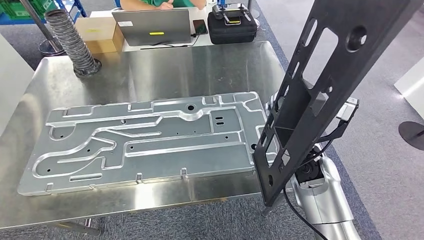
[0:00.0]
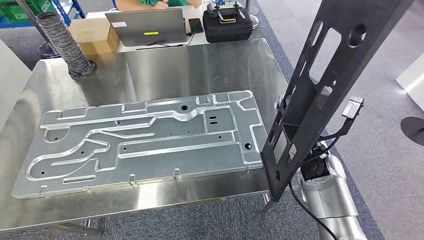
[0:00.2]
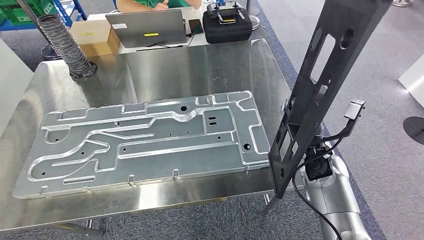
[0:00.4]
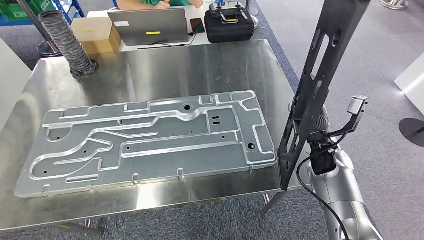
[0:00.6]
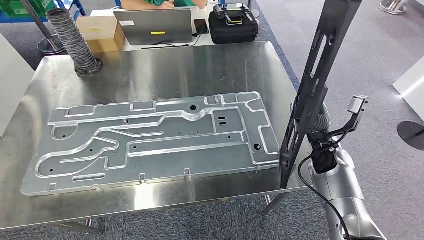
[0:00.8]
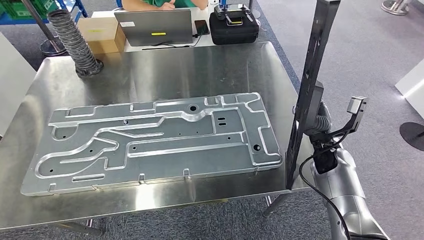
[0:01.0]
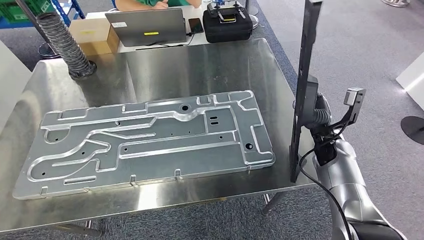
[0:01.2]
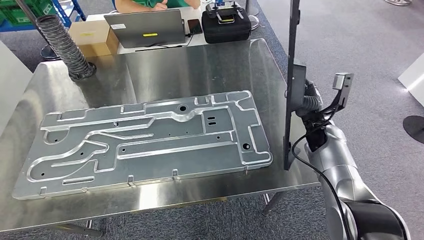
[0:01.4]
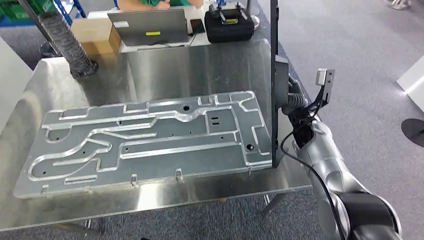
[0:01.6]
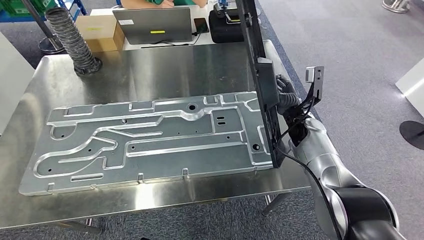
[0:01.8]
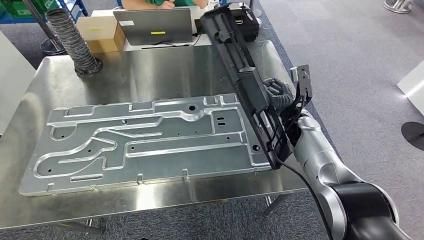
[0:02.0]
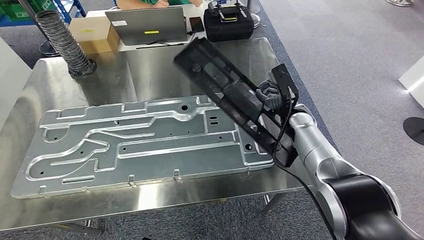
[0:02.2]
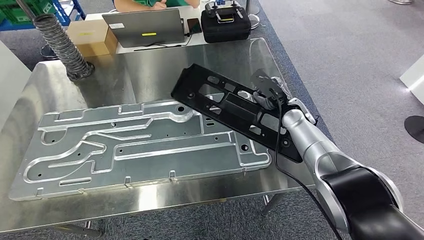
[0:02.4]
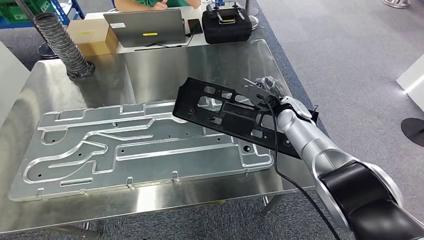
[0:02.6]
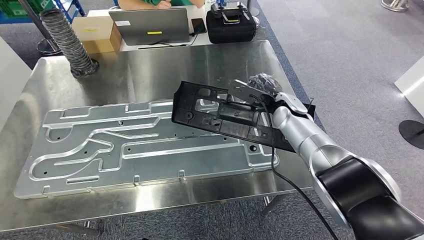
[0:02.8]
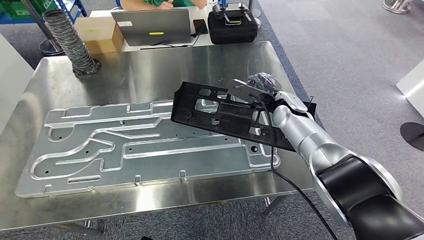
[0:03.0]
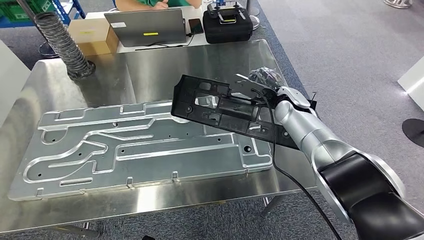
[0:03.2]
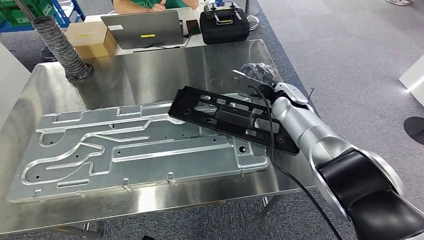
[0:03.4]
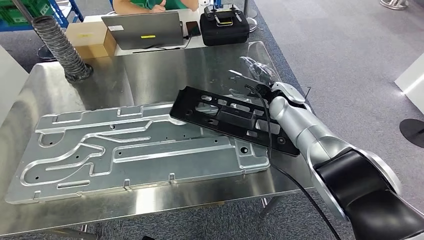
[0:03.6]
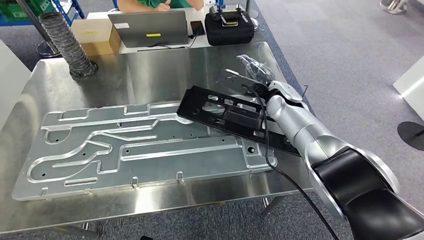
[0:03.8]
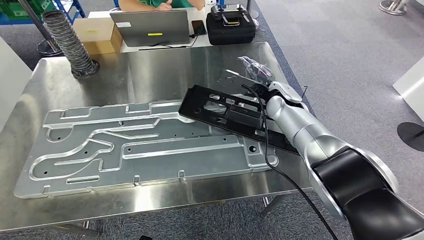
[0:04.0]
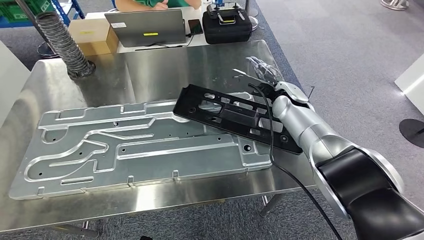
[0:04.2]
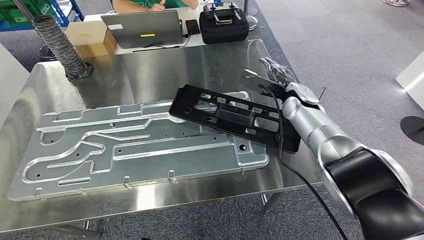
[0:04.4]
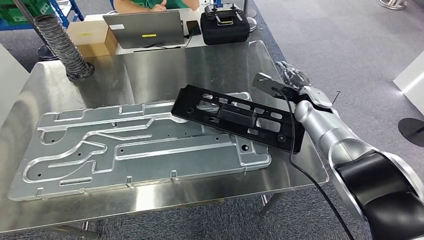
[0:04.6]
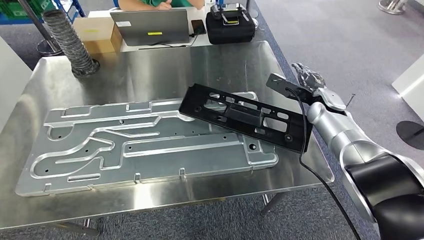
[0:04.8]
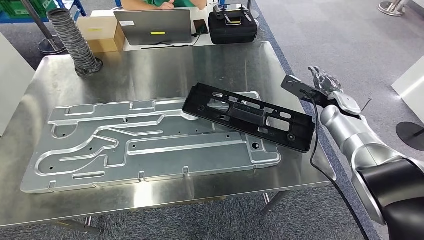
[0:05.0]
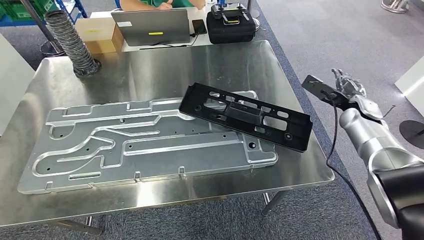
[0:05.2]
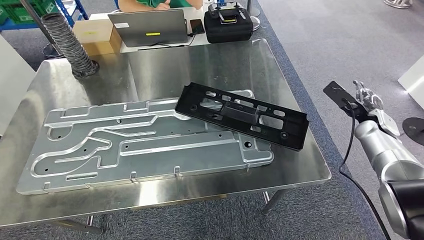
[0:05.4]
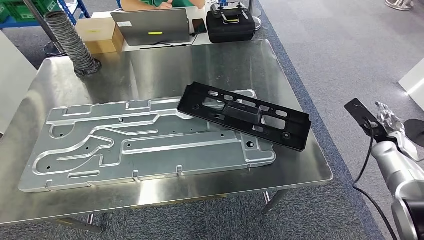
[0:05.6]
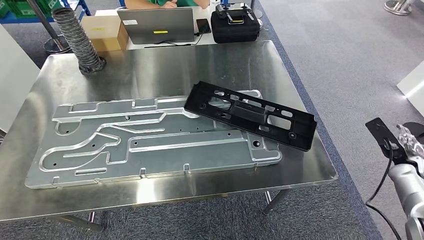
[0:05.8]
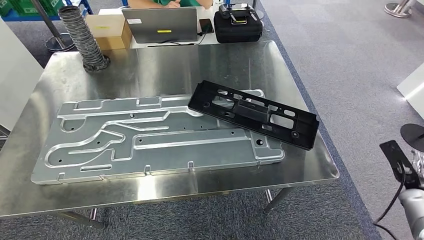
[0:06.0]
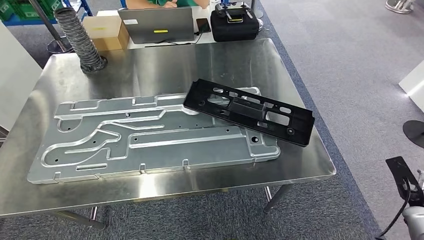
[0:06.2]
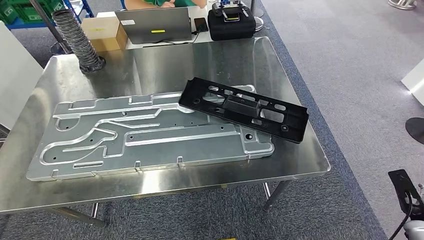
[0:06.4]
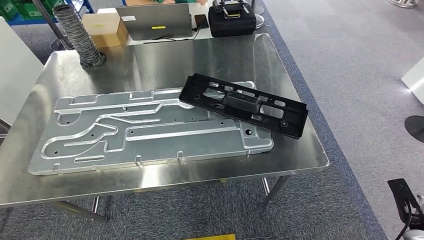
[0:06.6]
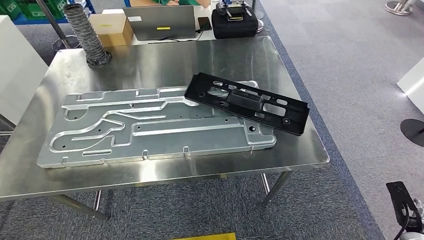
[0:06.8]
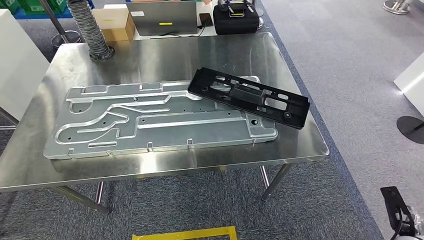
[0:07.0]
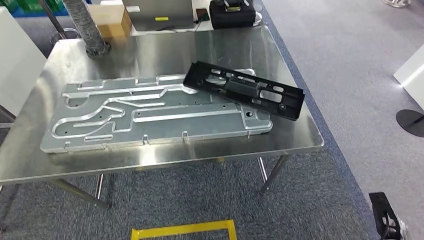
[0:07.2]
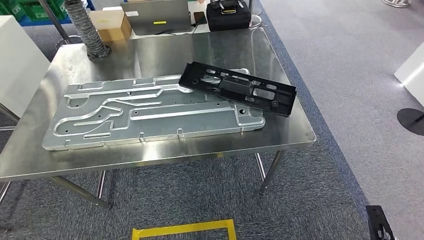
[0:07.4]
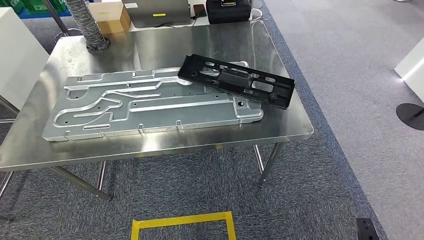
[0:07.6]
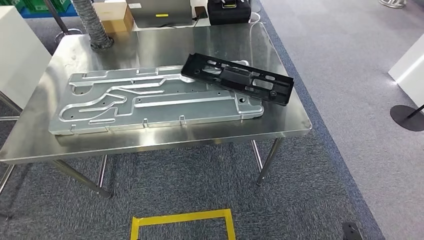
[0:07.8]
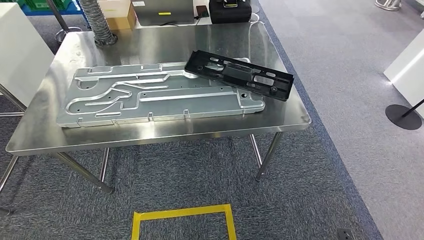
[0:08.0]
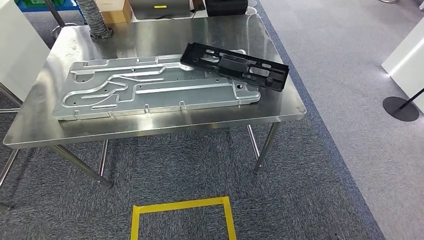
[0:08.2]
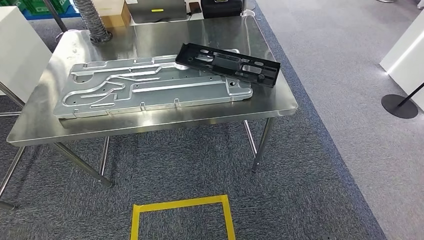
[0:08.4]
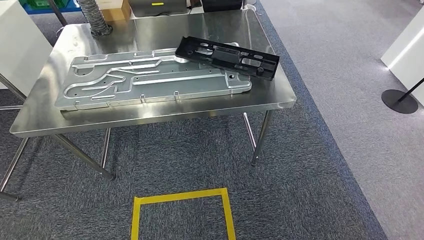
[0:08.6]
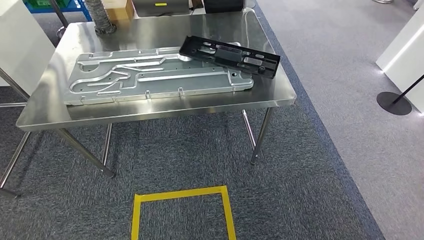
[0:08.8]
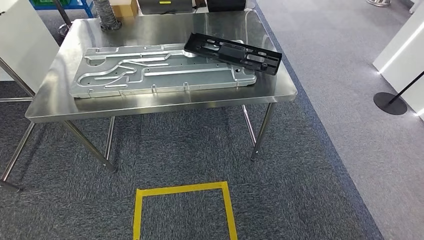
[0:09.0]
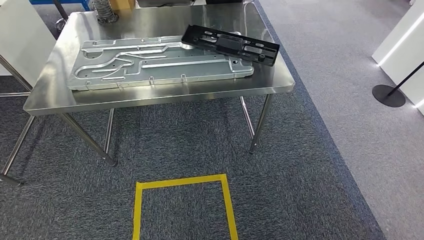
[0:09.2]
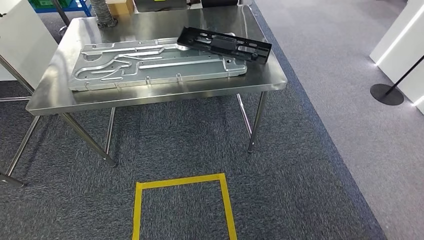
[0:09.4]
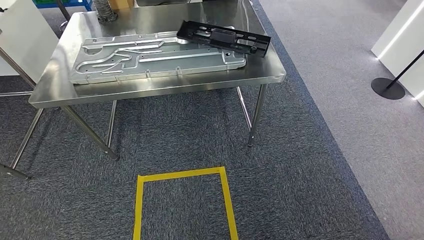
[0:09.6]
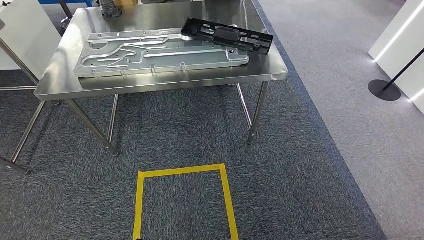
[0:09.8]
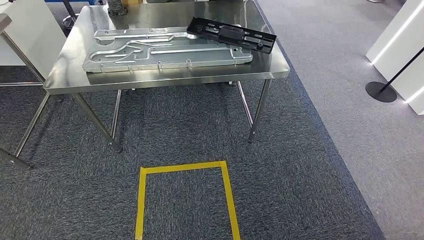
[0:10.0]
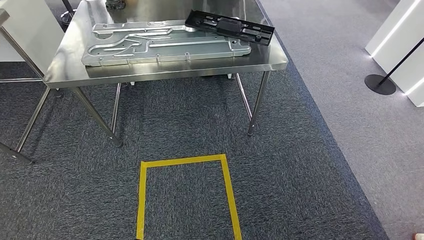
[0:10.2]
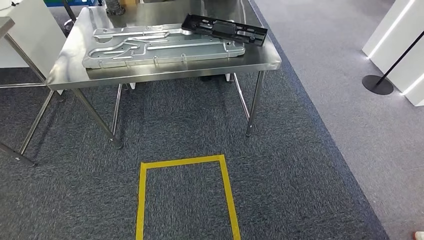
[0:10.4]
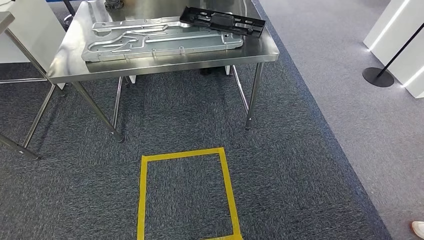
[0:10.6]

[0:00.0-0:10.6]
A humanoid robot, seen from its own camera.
Step, 0:00.0 to 0:04.8: Insert the large material into the corresponding slot on the workbench.

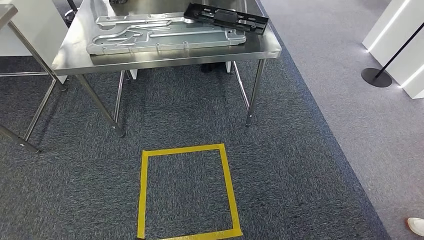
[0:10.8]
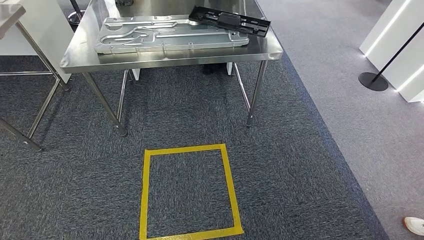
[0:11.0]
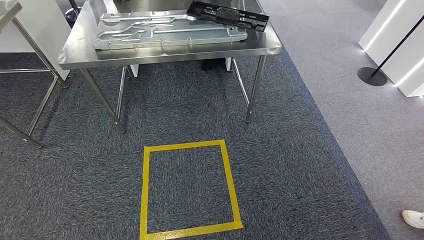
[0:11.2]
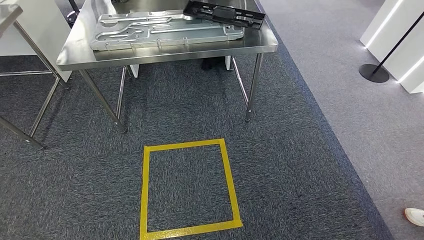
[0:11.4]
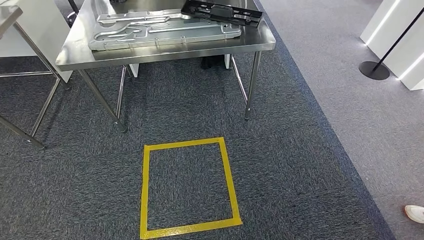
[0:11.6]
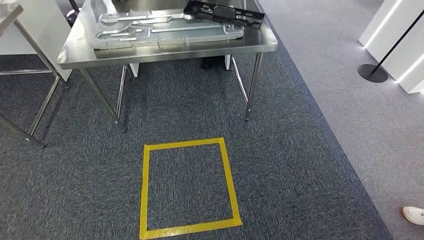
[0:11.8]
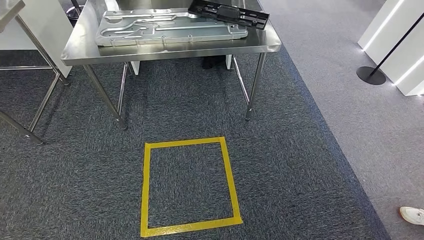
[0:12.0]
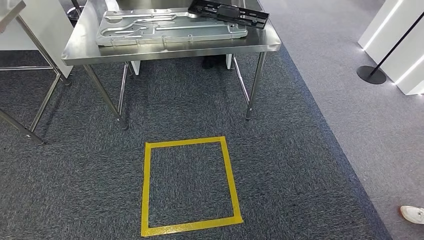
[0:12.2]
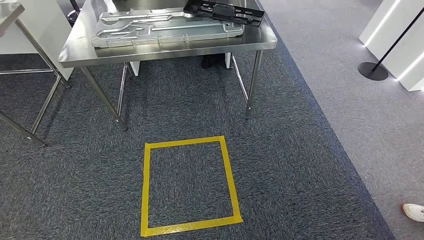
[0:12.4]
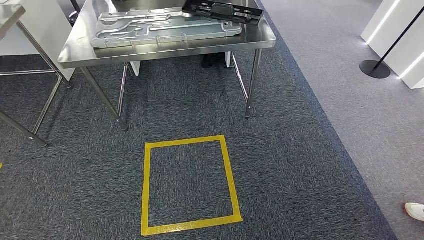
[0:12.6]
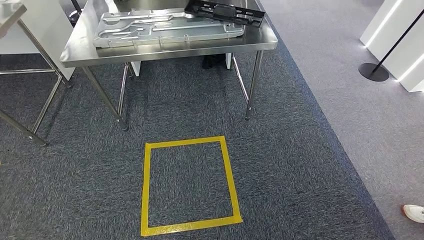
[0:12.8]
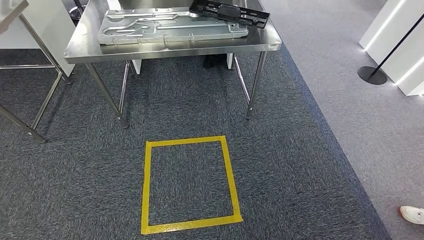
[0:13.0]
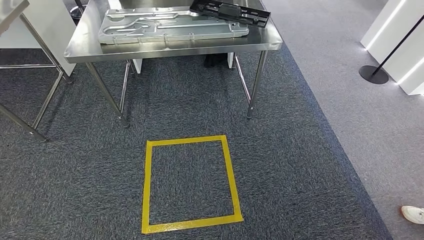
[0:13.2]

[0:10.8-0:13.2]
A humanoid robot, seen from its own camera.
Step, 0:10.8 to 0:13.2: Return to the initial position at the shelf.
0:10.8 to 0:12.0: The hands stay close to where they were, moving slightly.
0:12.0 to 0:13.2: The right hand is displaced backward by roughly 5 cm.
